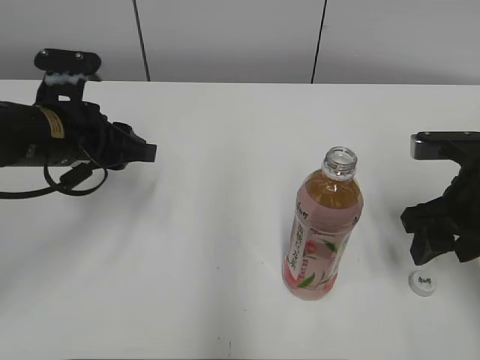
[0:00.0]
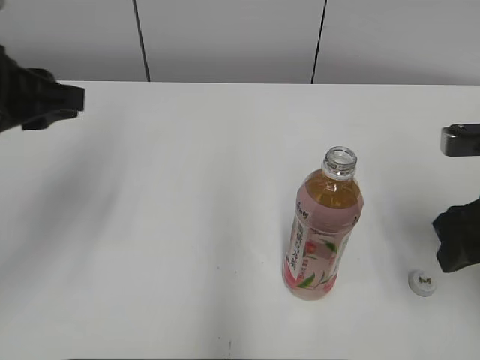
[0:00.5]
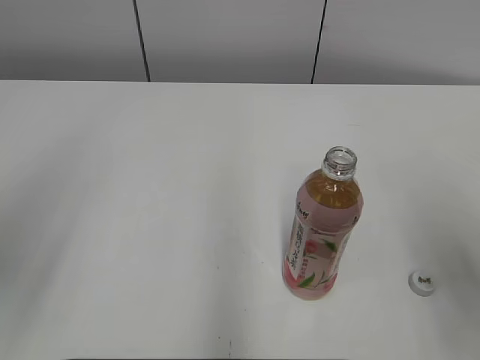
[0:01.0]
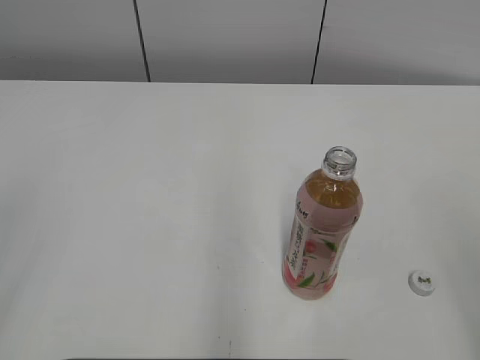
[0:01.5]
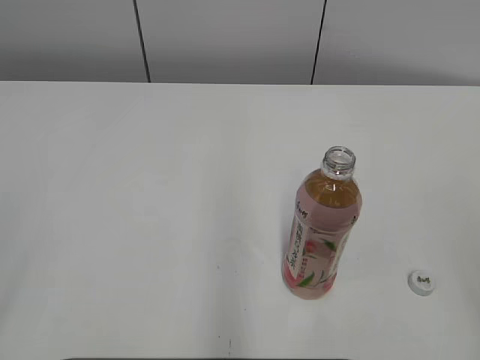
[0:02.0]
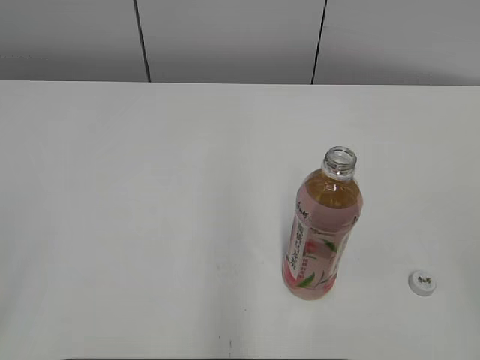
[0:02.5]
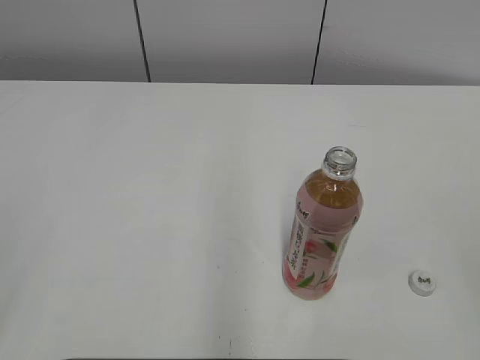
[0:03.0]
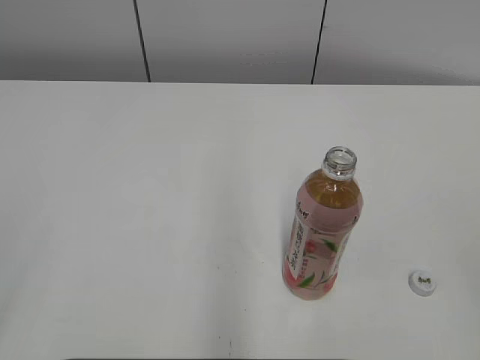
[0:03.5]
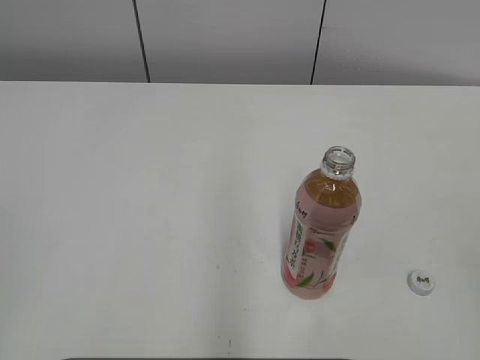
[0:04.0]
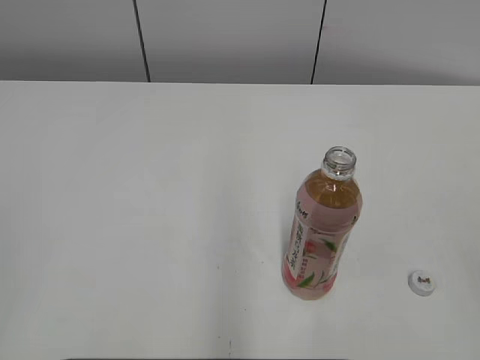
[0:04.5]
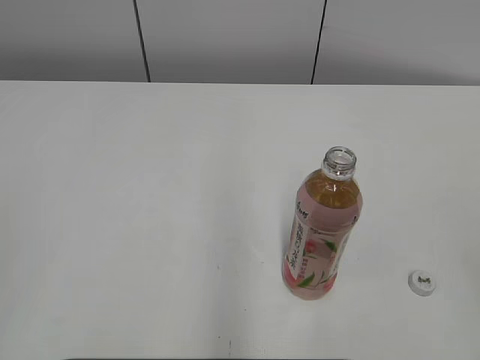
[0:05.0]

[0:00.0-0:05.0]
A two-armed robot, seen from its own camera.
0:00.0 to 0:02.5: The right gripper heads backward and upward, covering roughly 30 cm, while the left gripper goes about 35 cm backward and to the left.

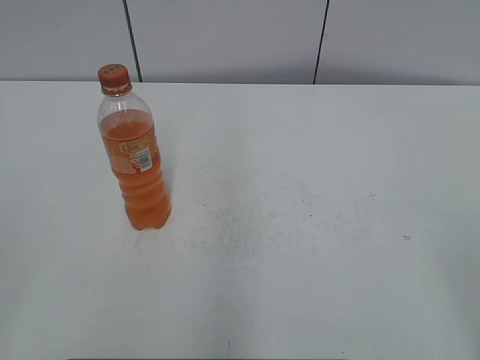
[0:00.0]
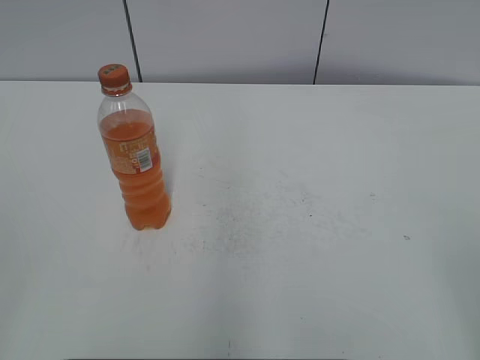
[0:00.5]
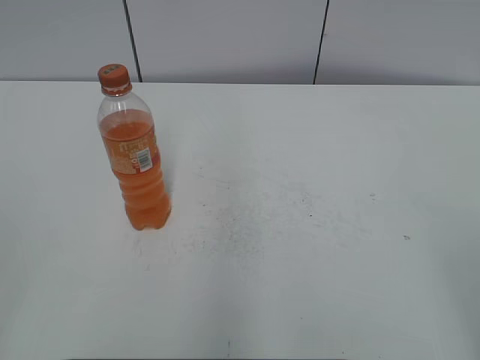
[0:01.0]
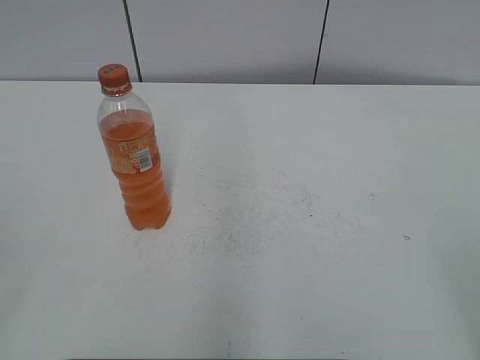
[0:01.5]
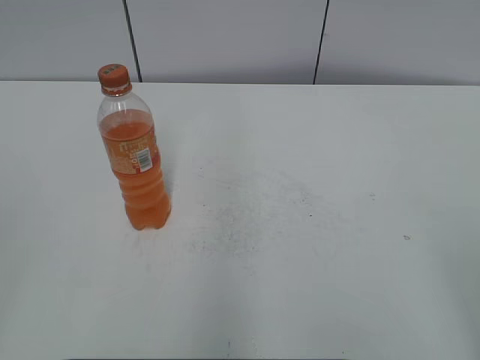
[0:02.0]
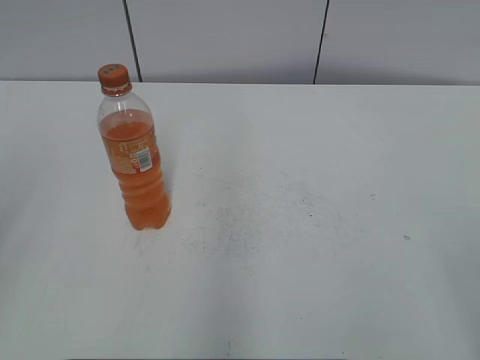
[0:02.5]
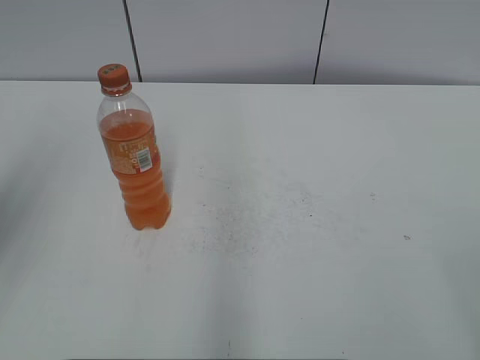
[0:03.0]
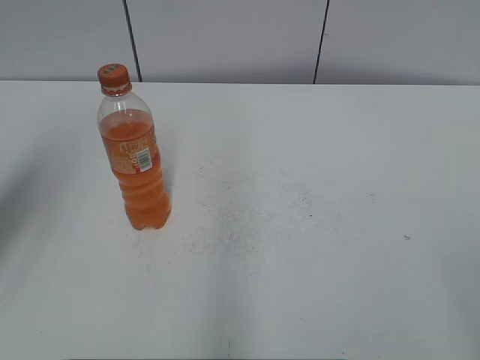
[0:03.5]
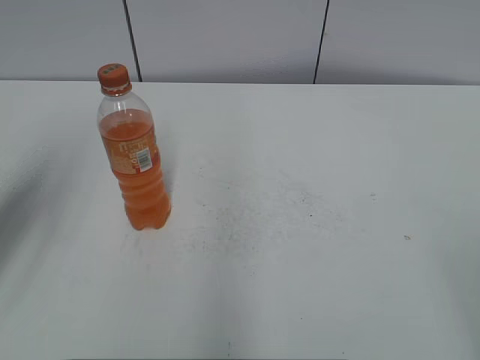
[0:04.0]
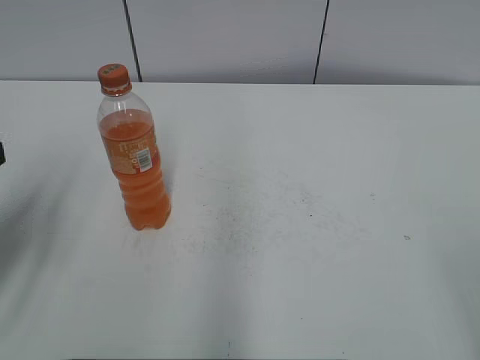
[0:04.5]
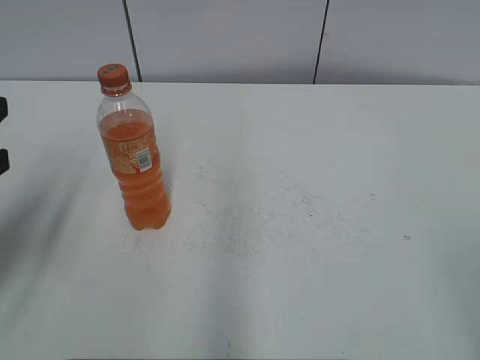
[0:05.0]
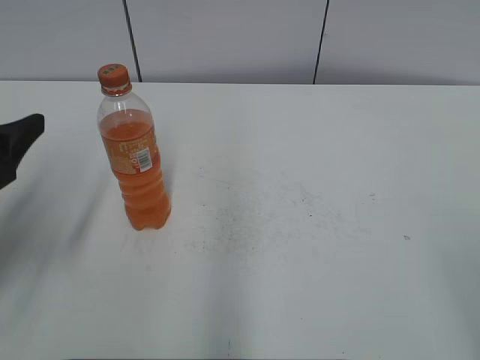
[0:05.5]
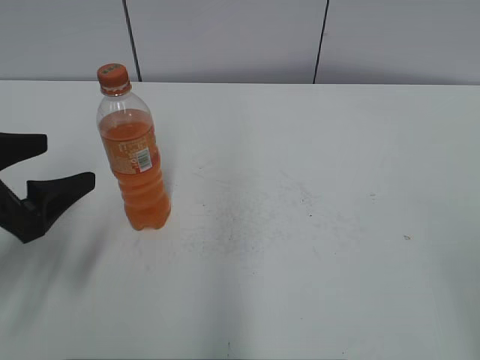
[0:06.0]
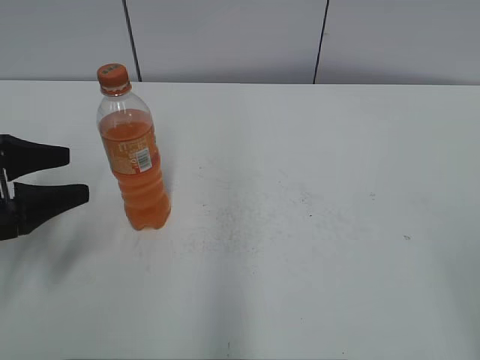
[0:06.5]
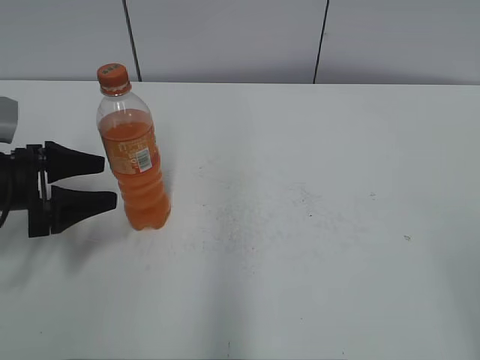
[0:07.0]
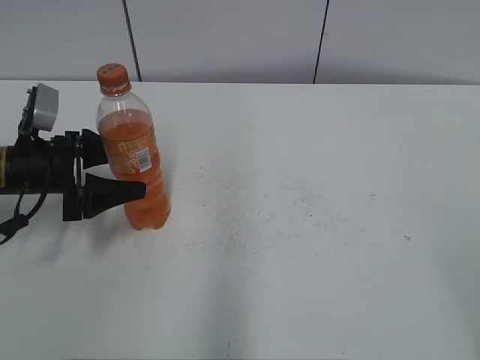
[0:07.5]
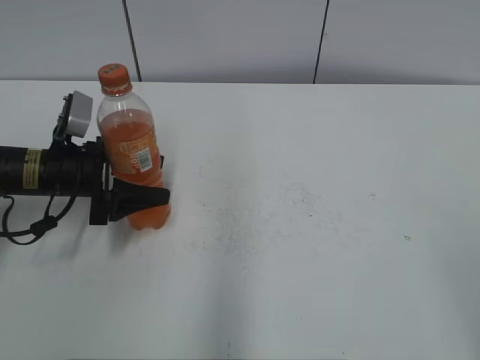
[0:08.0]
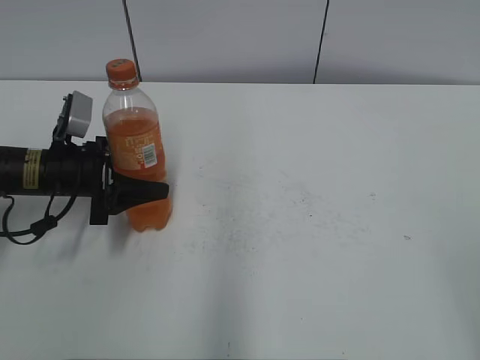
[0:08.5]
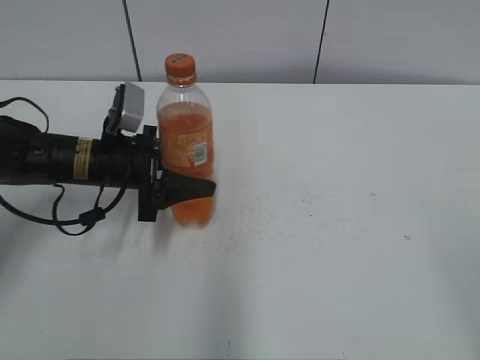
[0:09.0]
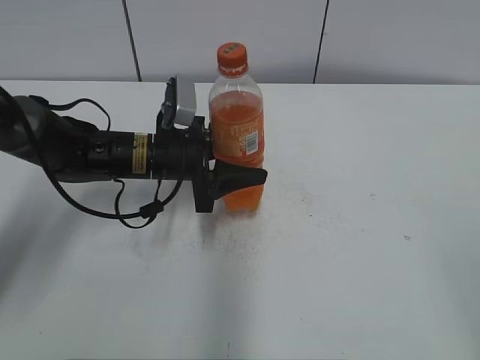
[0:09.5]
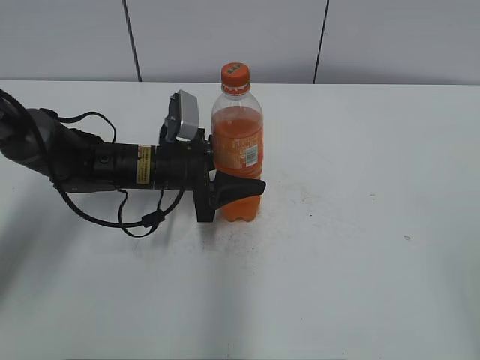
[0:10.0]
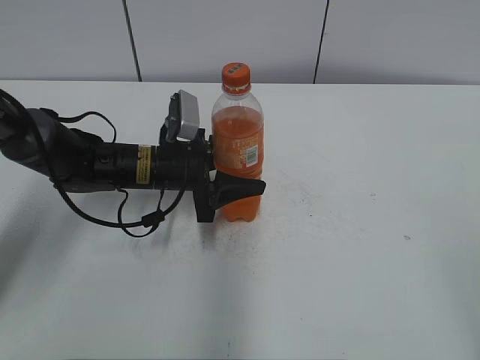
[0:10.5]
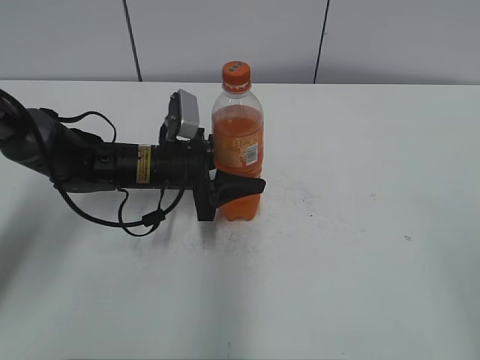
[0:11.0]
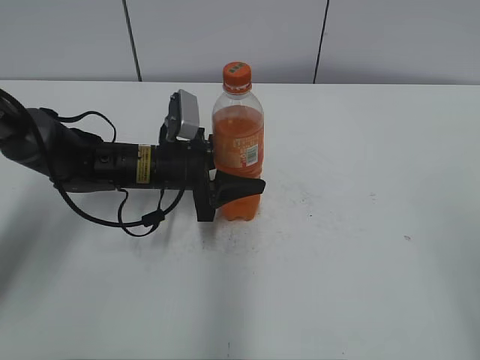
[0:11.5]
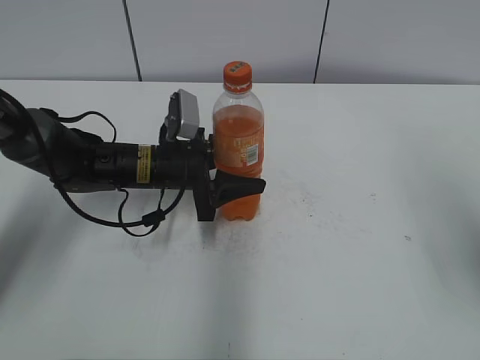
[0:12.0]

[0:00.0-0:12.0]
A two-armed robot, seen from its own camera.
Step, 0:00.0 to 0:08.0: Grab the Mirinda with the left hand.
Step, 0:08.5 to 0:12.0: Move the Mirinda from left to right.
0:02.0 to 0:04.0: The left gripper travels forward by roughly 25 cm.
0:04.0 to 0:06.0: The left gripper heads downward, covering some 10 cm, and opens its fingers.
0:06.0 to 0:08.0: The left gripper heads forward and downward, covering roughly 15 cm.
0:08.0 to 0:10.0: The left gripper heads to the right, covering roughly 15 cm, and closes up.
0:10.0 to 0:12.0: The right gripper is displaced forward by approximately 15 cm.

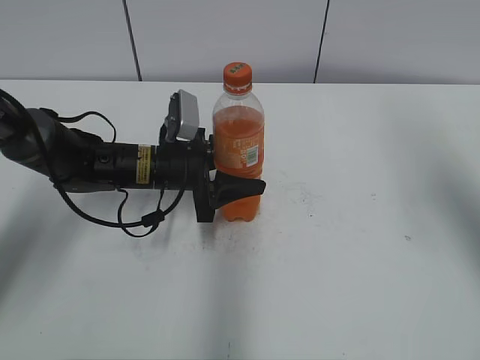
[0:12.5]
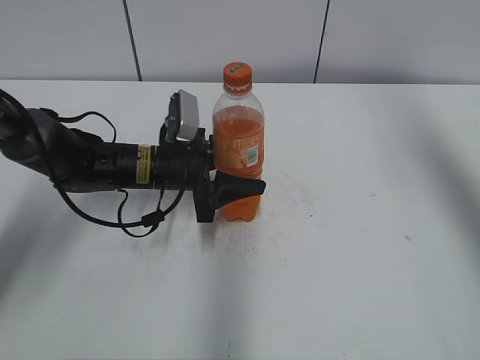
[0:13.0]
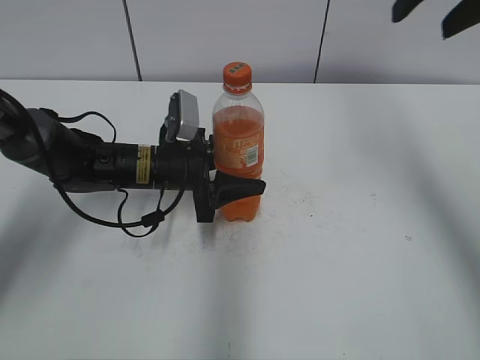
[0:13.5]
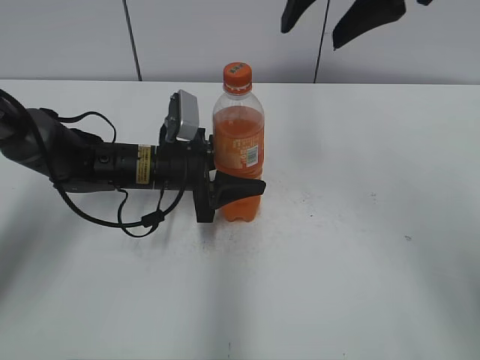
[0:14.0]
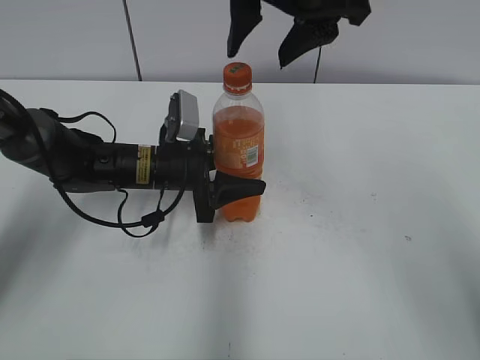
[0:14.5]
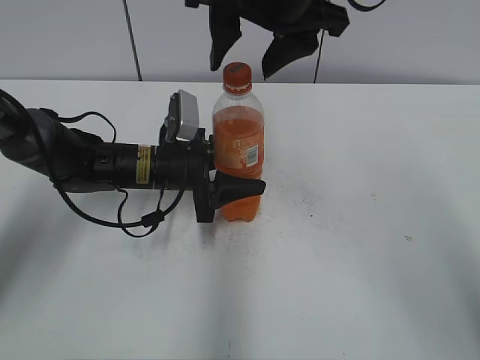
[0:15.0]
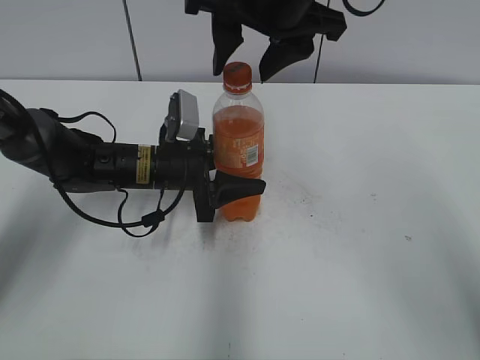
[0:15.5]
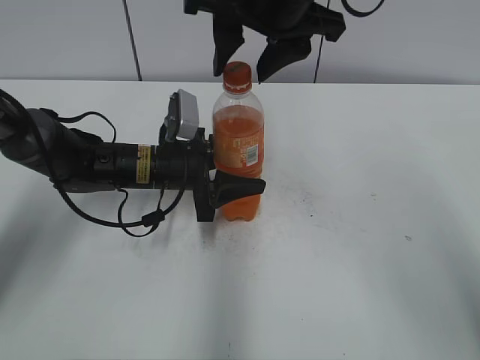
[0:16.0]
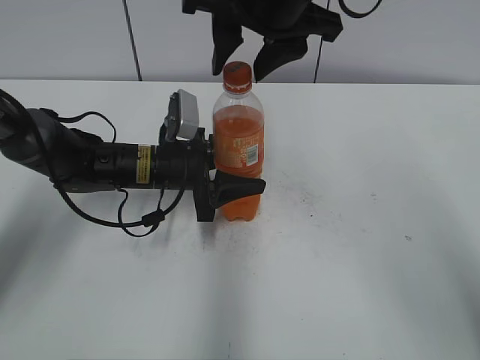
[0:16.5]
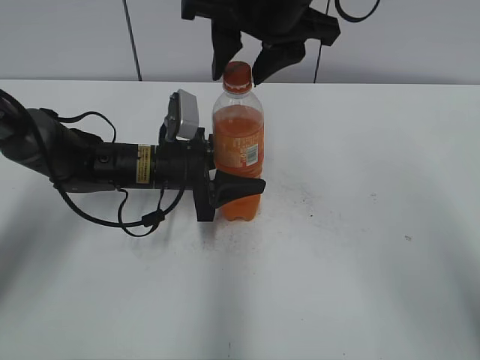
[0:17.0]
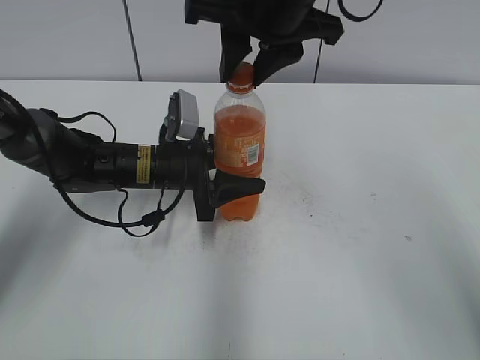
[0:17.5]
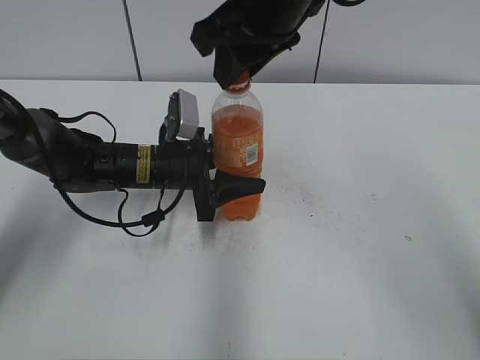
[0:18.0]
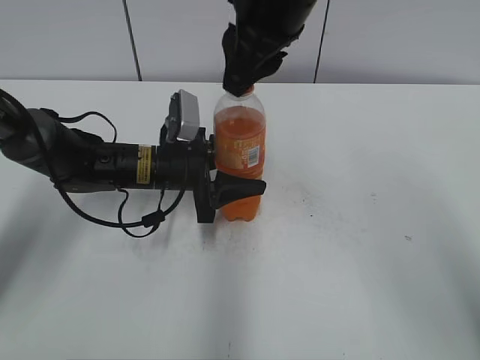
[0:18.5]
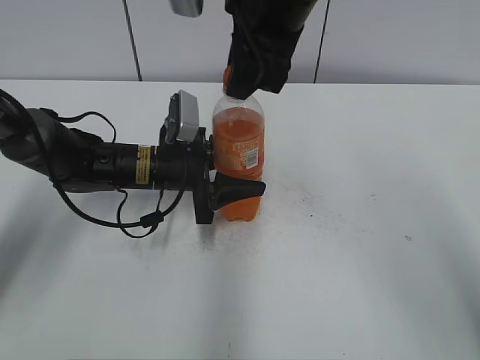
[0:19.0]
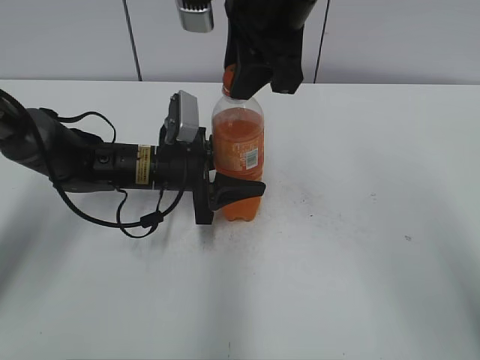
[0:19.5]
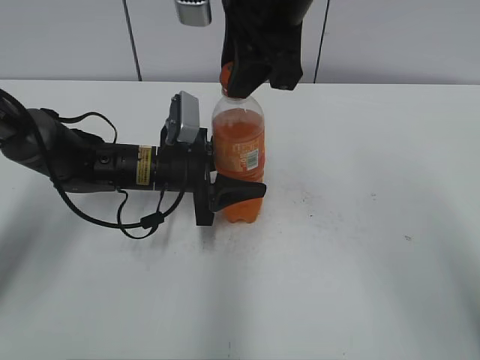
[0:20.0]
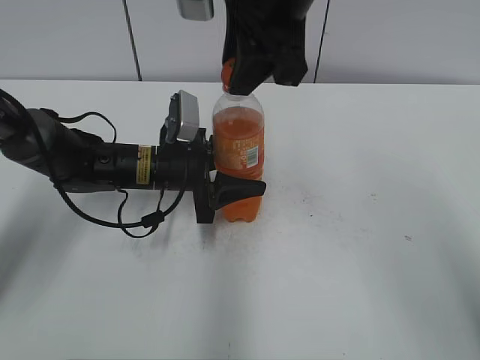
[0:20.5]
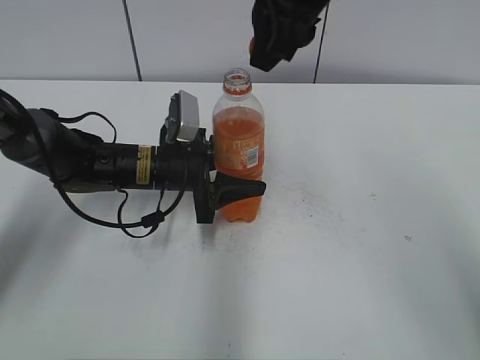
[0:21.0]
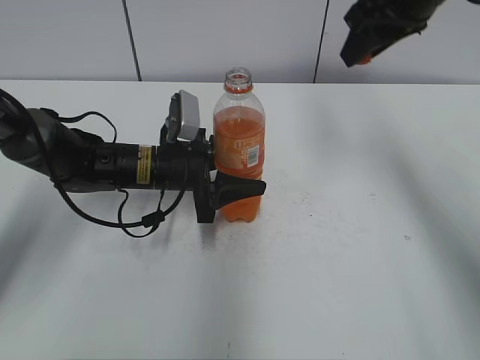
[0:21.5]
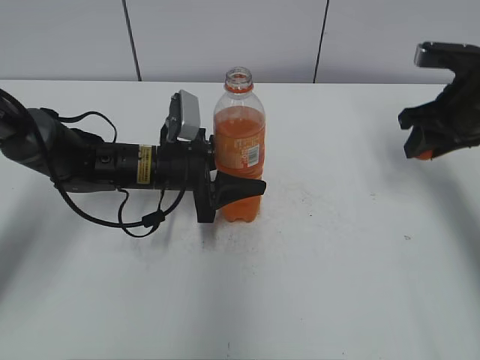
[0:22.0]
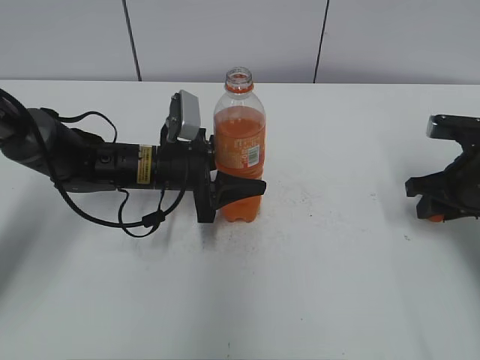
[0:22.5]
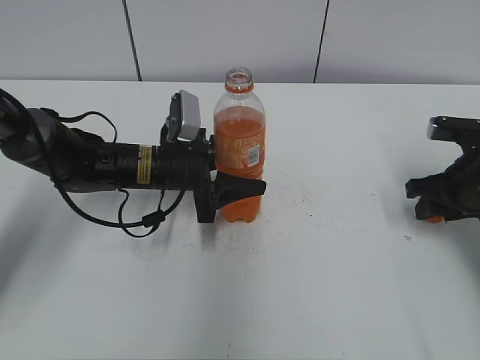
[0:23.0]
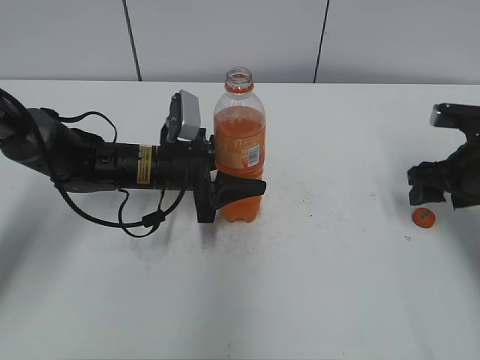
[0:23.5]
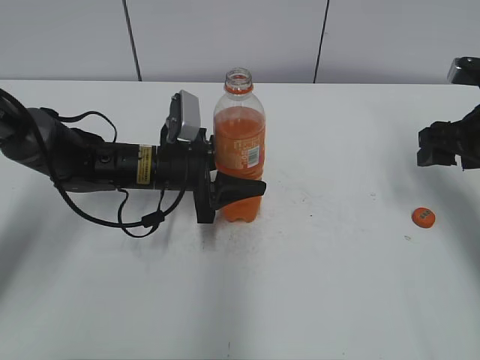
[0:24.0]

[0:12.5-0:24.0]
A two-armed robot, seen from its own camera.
Step, 0:20.5 to 0:23.0: Place the bottle cap on the right.
0:12.5 to 0:14.5: The right gripper heads to the left, covering roughly 20 cm.
0:14.5 to 0:16.5: The grippers make only small movements.
0:16.5 to 0:18.5: The right gripper closes its fingers.
0:20.0 to 0:22.0: The right gripper shifts about 30 cm to the right and downward.
0:22.0 to 0:24.0: The right gripper opens.
